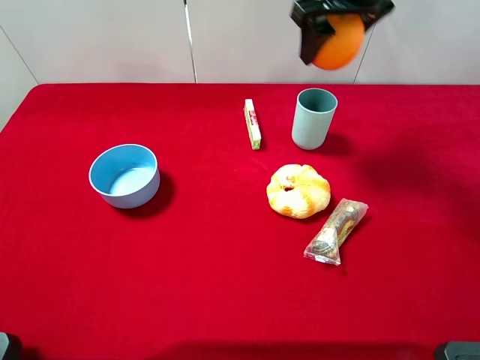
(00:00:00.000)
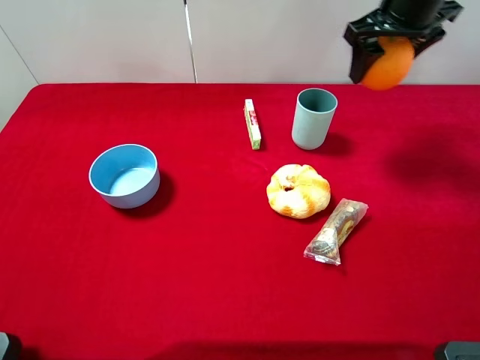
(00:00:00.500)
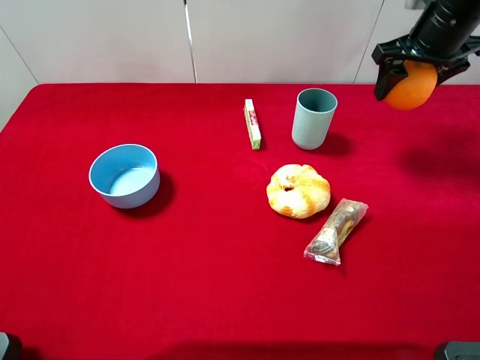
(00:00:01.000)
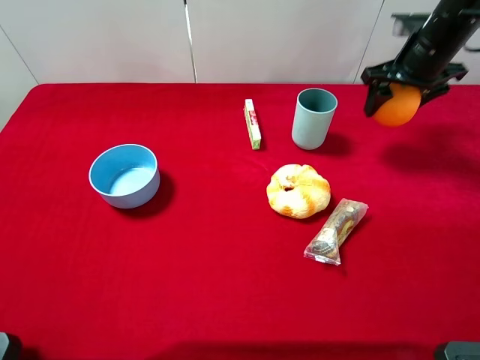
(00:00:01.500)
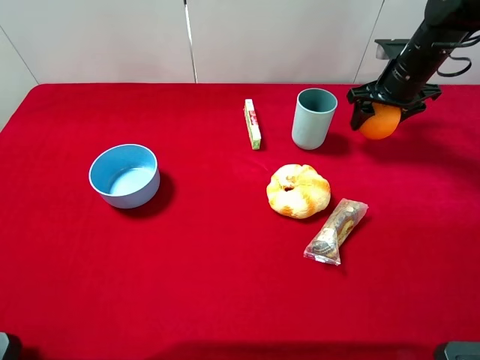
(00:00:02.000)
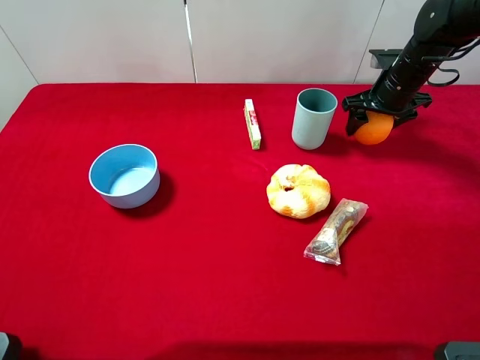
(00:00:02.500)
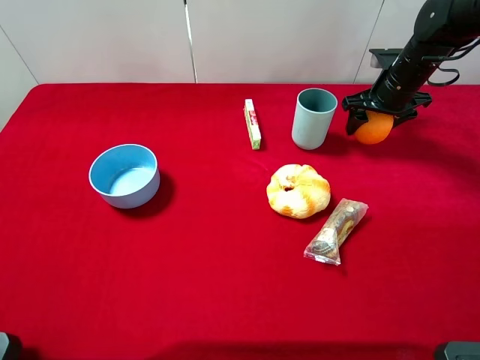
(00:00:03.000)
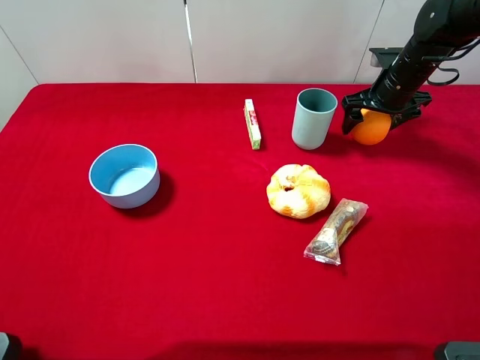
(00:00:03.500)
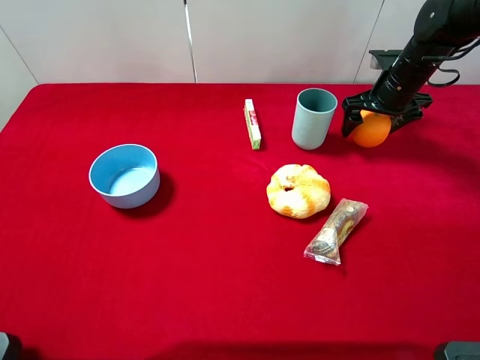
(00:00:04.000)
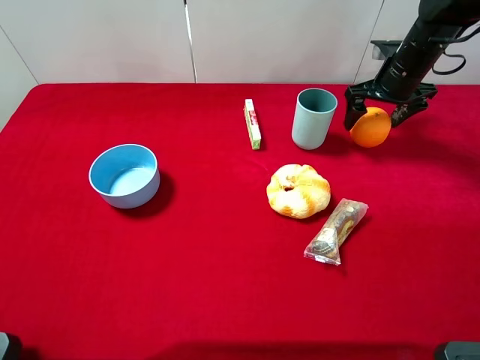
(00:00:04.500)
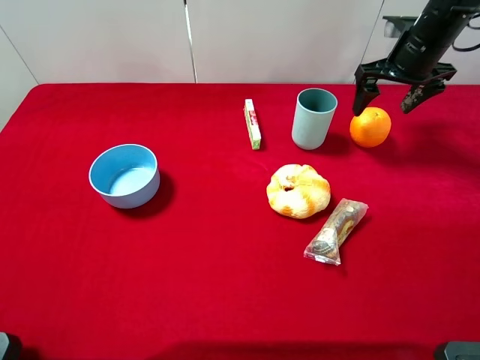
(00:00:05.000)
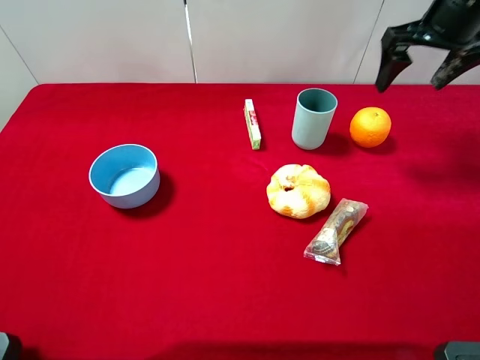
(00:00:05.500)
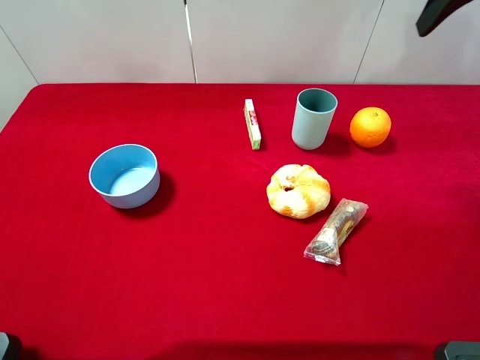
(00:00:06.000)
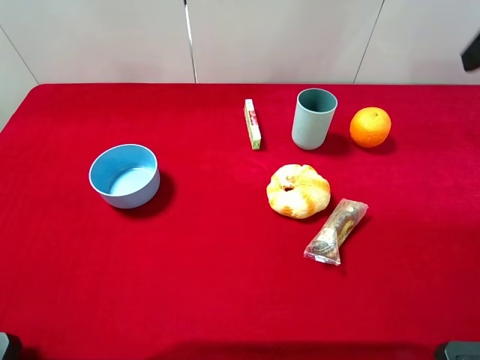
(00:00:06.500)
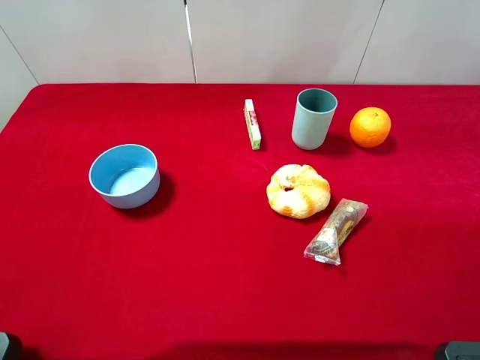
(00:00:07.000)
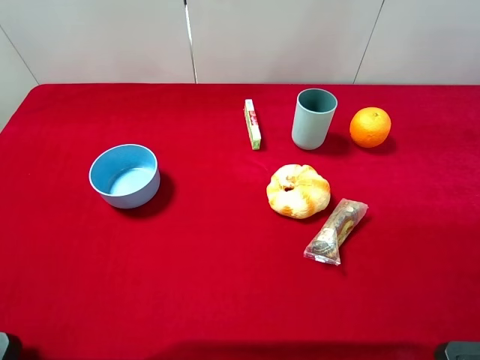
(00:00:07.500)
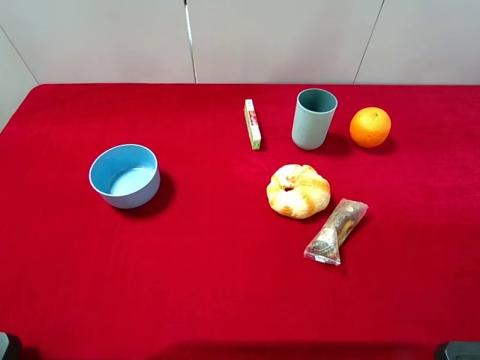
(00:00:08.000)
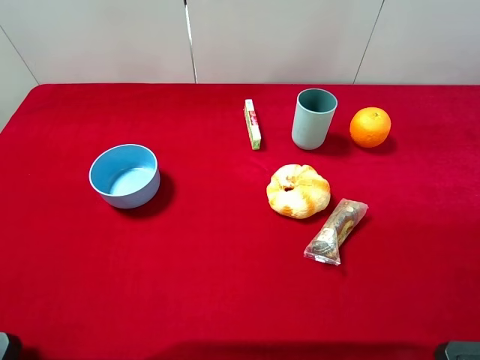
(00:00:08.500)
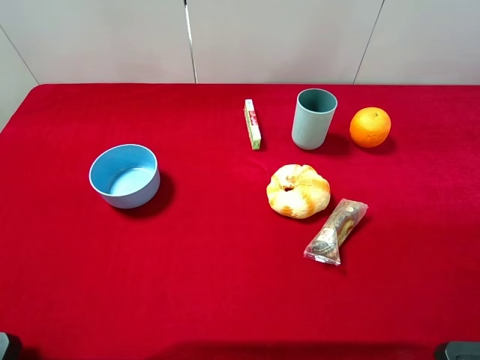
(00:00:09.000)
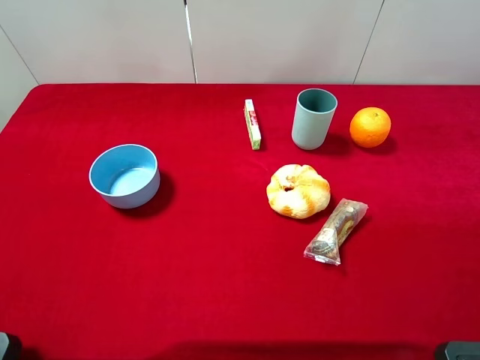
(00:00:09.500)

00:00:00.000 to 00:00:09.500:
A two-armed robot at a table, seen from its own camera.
Task of the whole recording: the gripper move the object.
Step, 00:00:00.000 to 00:00:05.000: Place the orange on the table with the right gripper.
00:00:00.000 to 00:00:02.000: The right gripper shifts about 20 cm downward and to the right.
00:00:02.000 to 00:00:04.000: The right gripper opens.
00:00:04.000 to 00:00:05.500: The right gripper is displaced upward by some 15 cm.
00:00:05.500 to 00:00:07.500: The right gripper heads backward, covering about 35 cm.

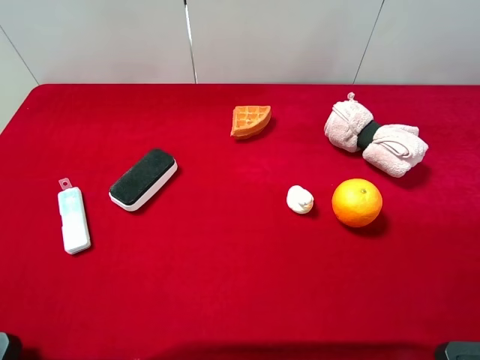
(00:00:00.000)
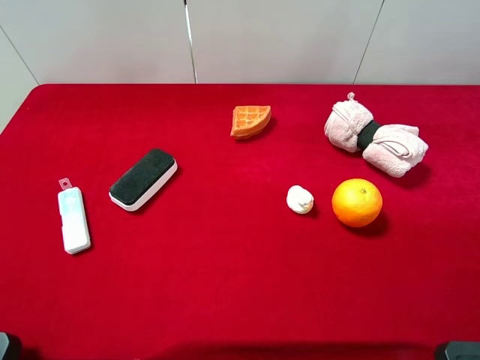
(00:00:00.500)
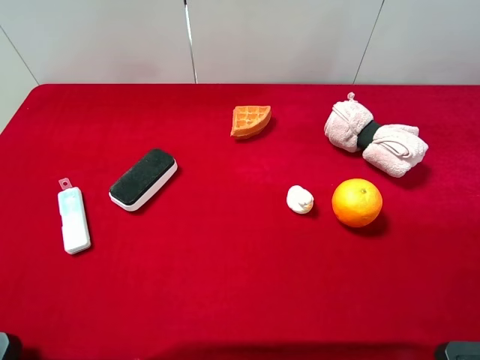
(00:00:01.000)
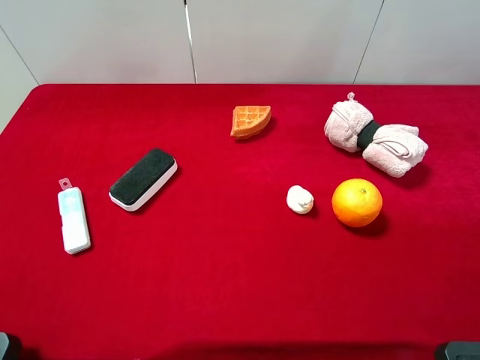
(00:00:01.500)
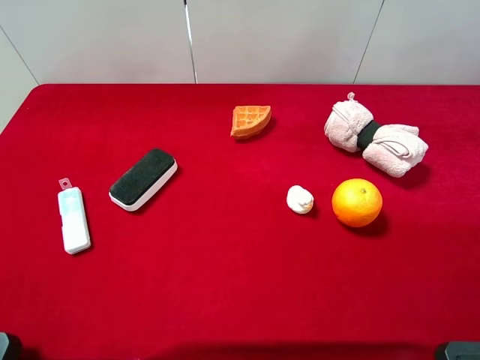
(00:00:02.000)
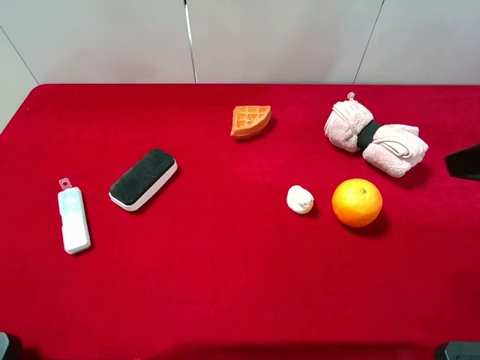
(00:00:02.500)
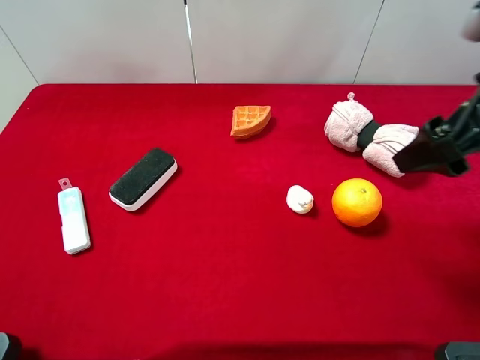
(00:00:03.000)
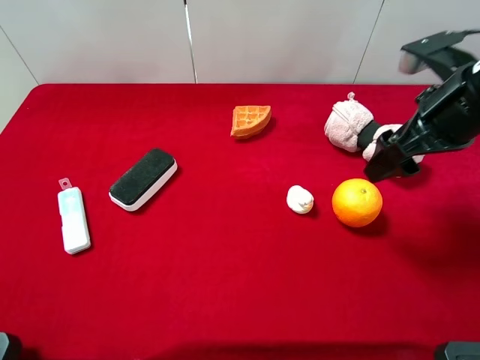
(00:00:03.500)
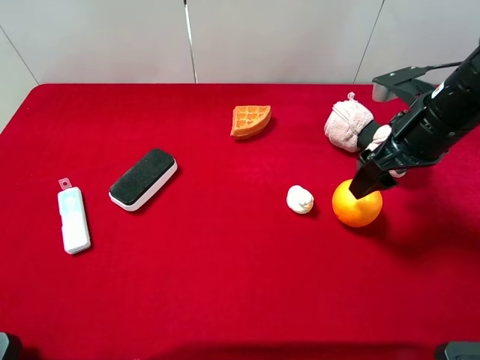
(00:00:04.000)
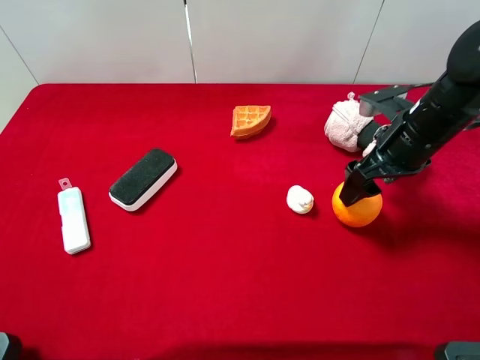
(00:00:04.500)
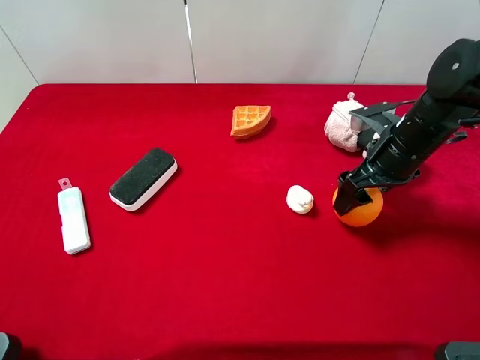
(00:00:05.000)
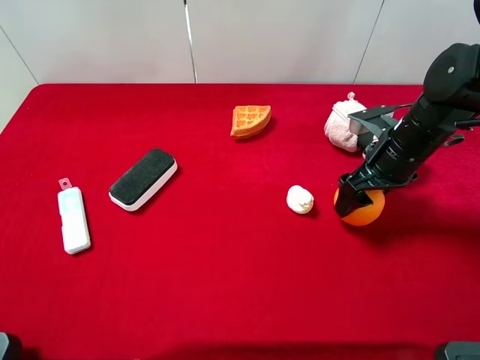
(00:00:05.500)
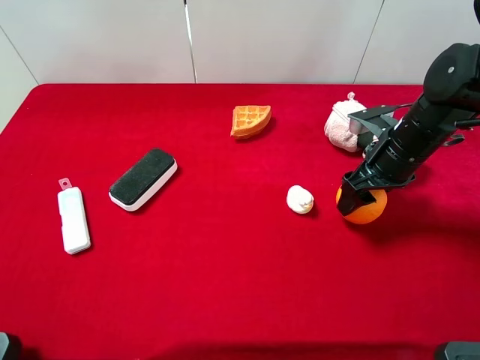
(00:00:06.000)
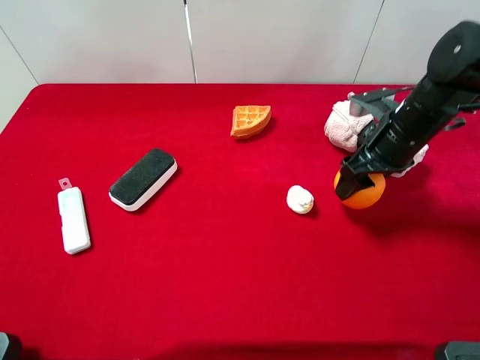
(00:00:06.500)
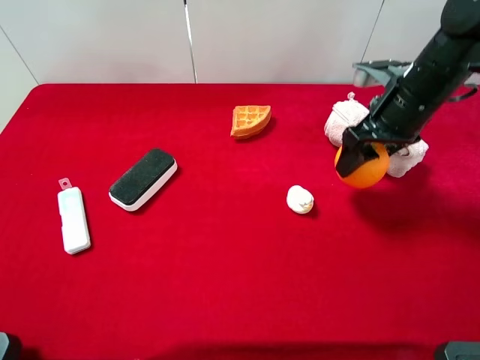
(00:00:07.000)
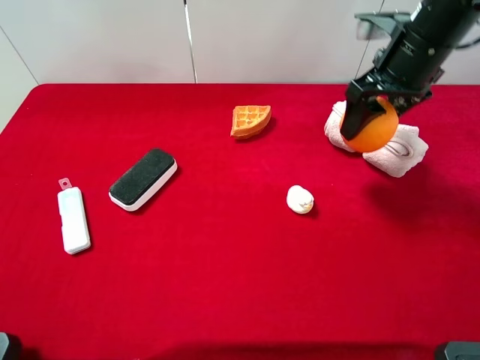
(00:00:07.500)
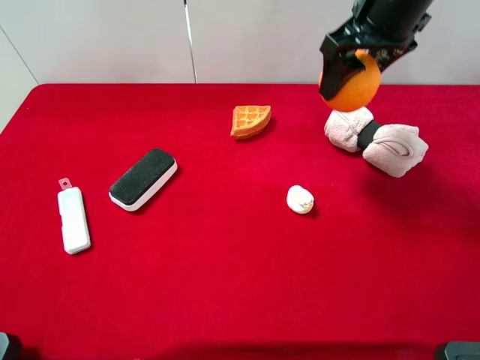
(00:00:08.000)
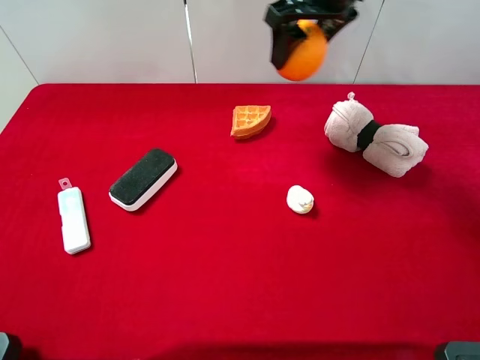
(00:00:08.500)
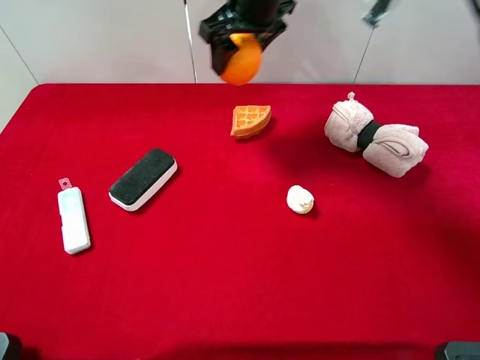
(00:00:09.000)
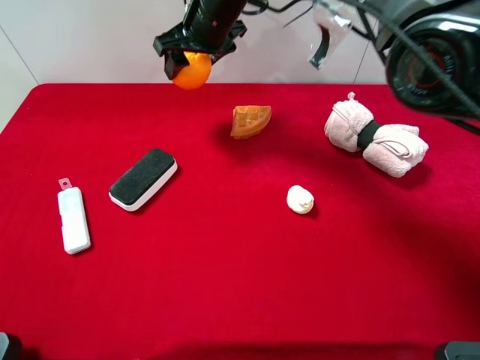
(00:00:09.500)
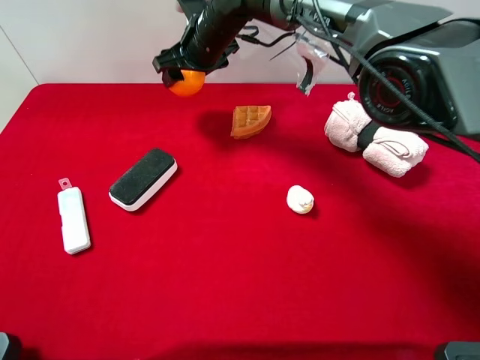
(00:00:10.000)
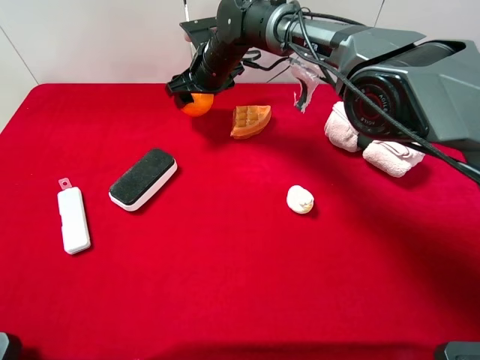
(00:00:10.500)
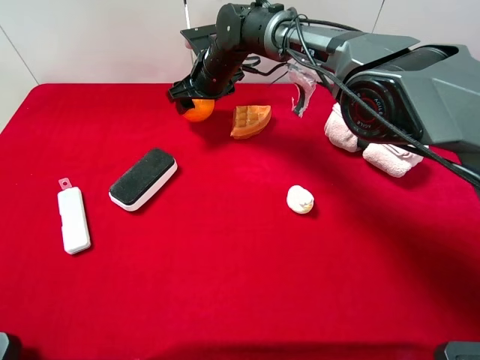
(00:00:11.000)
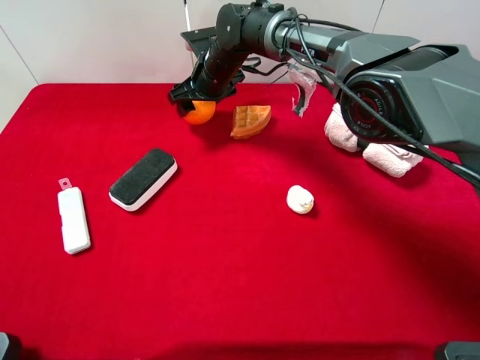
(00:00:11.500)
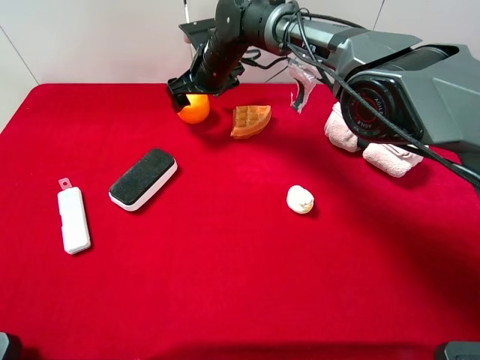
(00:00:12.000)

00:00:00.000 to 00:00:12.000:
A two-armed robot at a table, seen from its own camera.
Task of the whole recording: the gripper move the object.
Step, 00:00:00.000 to 00:00:05.500: Grasp the orange with the right gripper.
00:00:02.000 to 00:00:04.000: The right gripper is displaced forward and downward by approximately 20 cm.
00:00:04.000 to 00:00:06.000: The right gripper goes some 5 cm downward, and closes its fingers.
00:00:06.000 to 00:00:08.000: The right gripper heads upward, covering about 15 cm.
00:00:08.000 to 00:00:10.000: The right gripper moves to the left, downward and forward, roughly 25 cm.
00:00:10.000 to 00:00:12.000: The right gripper opens up.

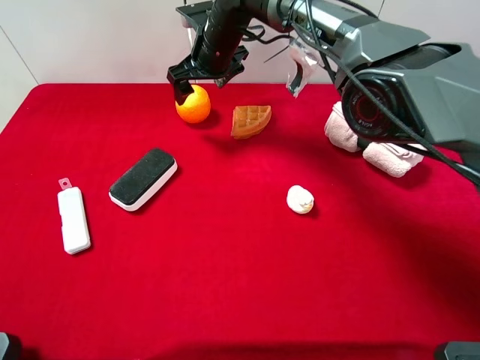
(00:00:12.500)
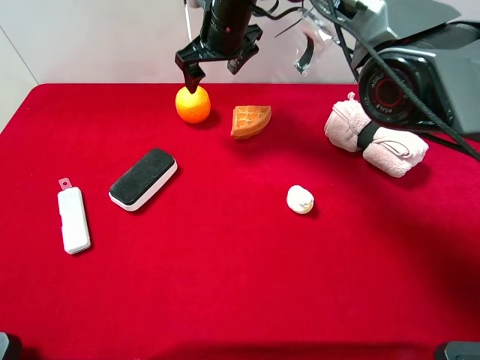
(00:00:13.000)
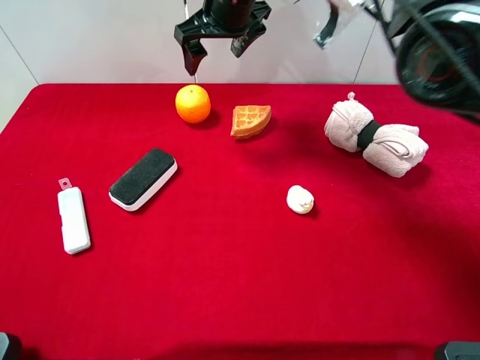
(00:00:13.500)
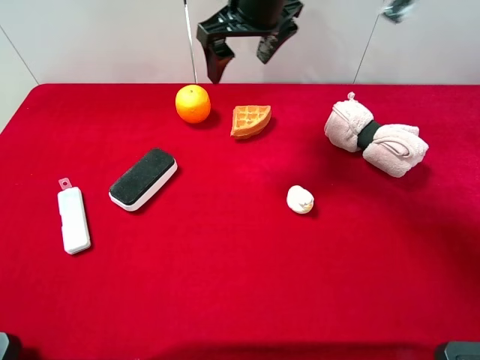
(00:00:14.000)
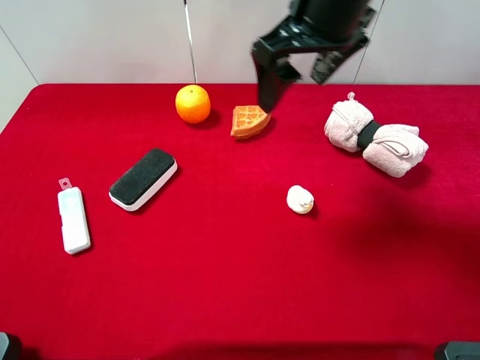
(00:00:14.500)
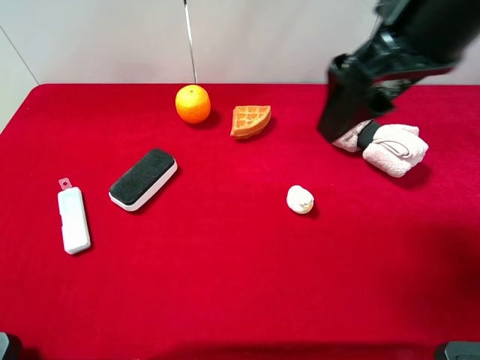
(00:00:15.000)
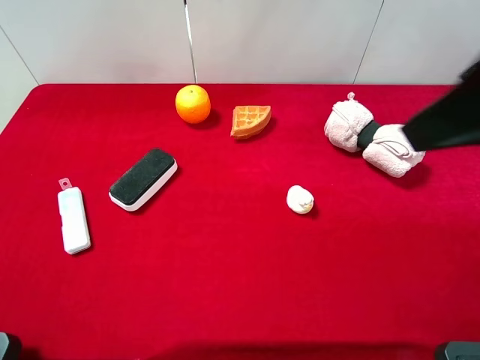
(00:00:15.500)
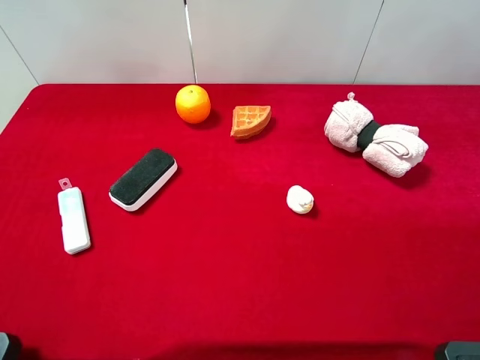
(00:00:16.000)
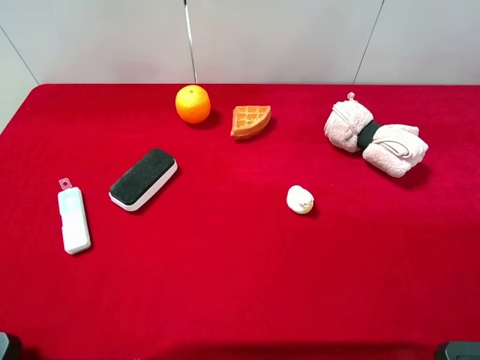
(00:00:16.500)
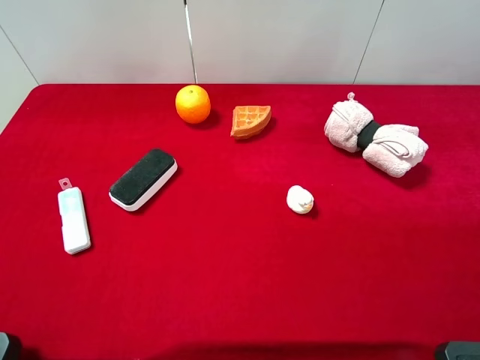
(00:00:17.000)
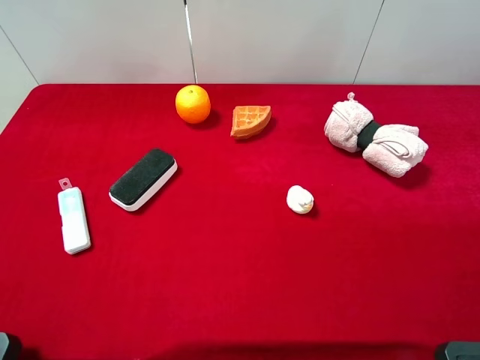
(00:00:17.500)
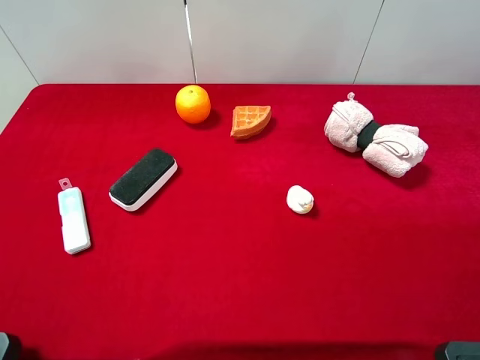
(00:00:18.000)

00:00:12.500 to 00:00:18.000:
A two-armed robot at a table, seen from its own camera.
Task of the whole recording: the gripper move the object.
00:00:12.500 to 00:00:14.500: The right gripper shifts some 25 cm backward, upward and to the right.
00:00:14.500 to 00:00:16.000: The right gripper shifts approximately 30 cm backward and to the right.
